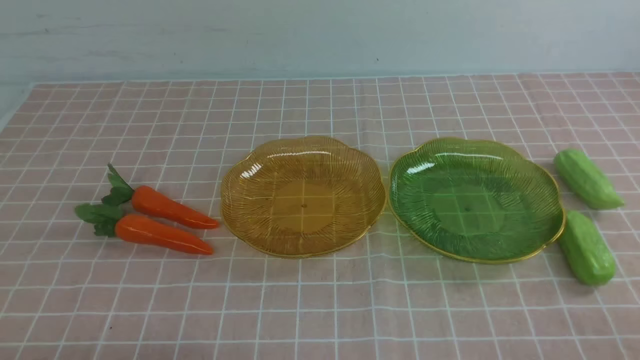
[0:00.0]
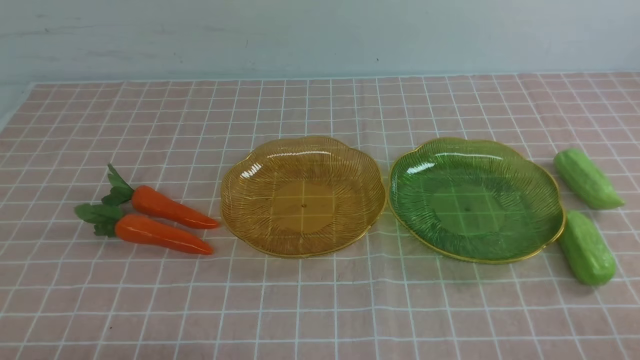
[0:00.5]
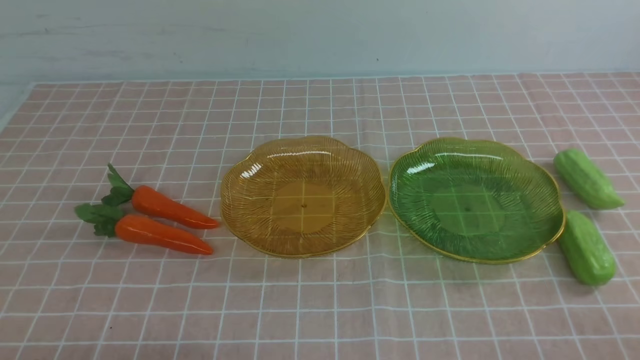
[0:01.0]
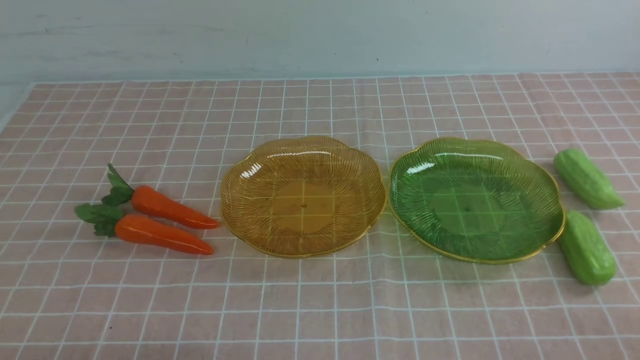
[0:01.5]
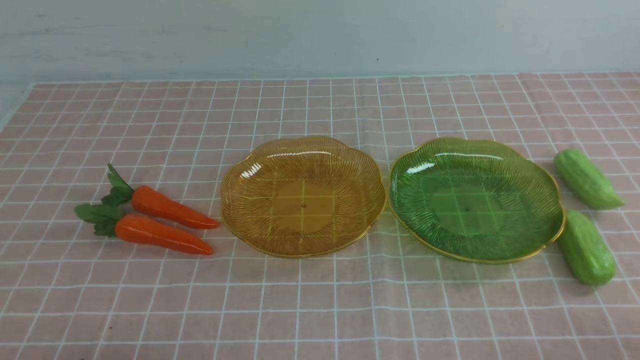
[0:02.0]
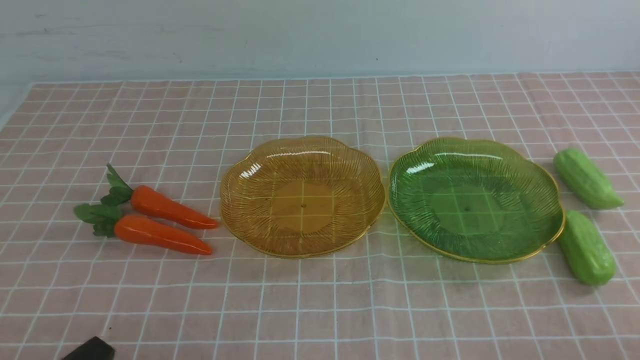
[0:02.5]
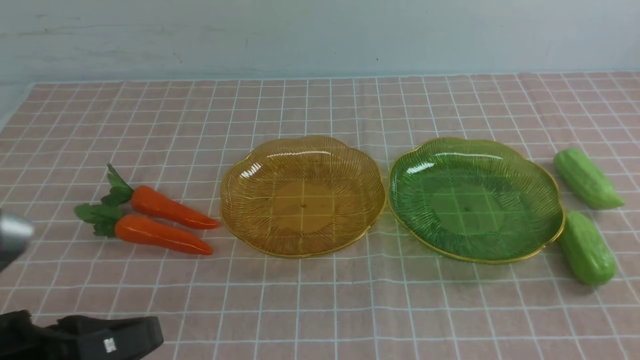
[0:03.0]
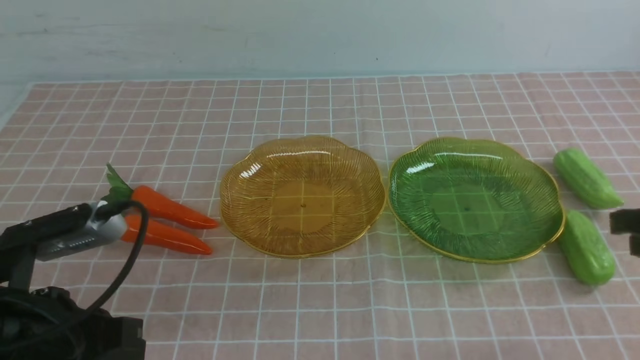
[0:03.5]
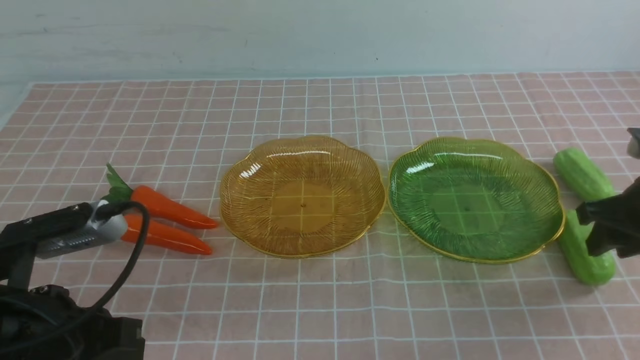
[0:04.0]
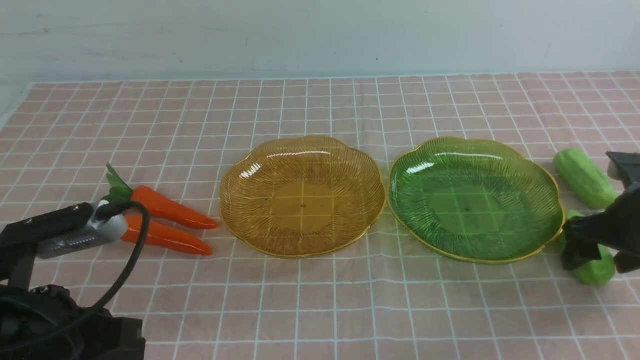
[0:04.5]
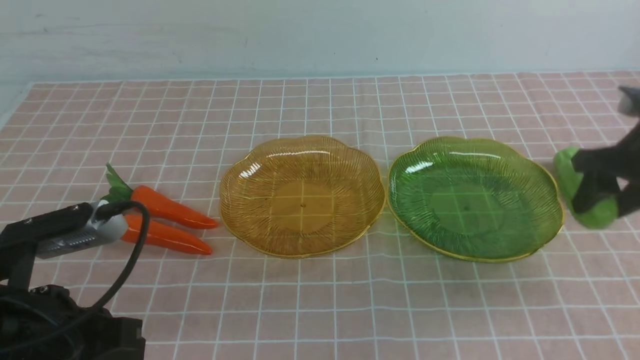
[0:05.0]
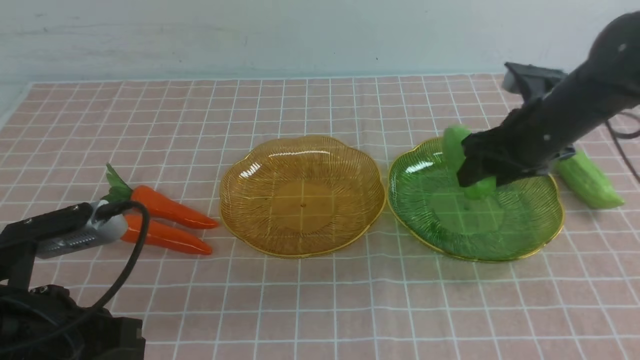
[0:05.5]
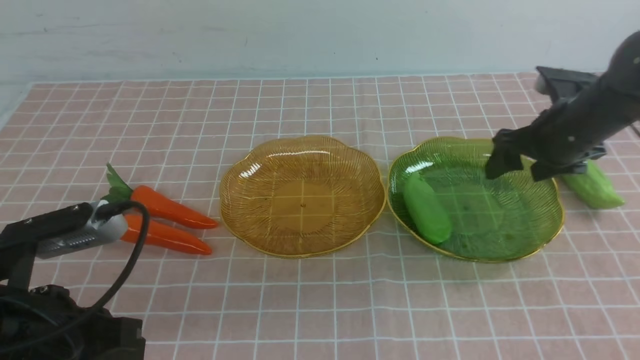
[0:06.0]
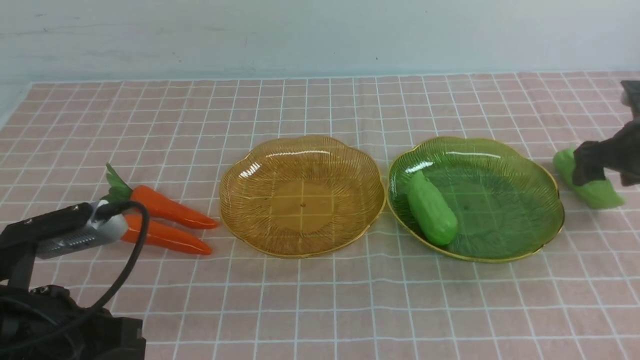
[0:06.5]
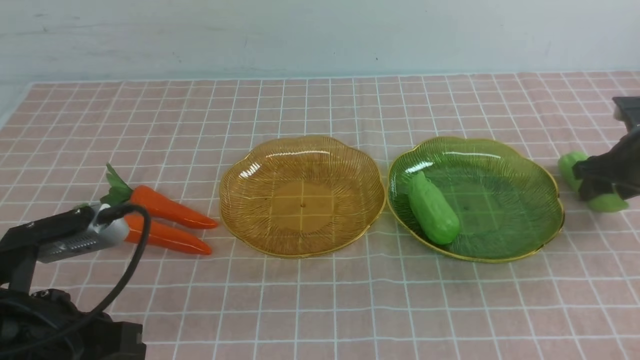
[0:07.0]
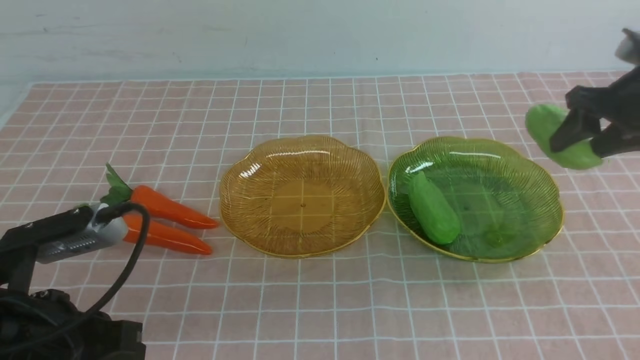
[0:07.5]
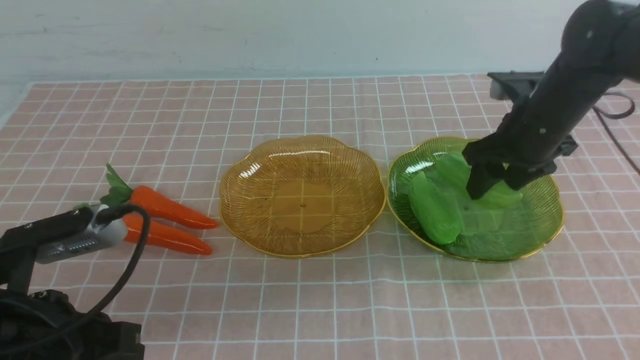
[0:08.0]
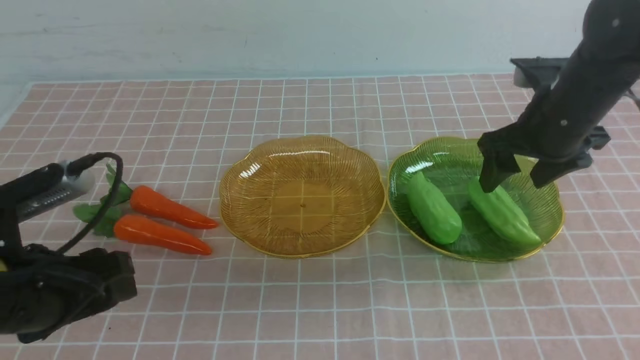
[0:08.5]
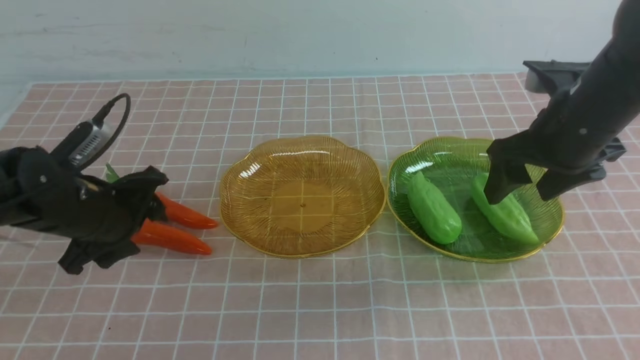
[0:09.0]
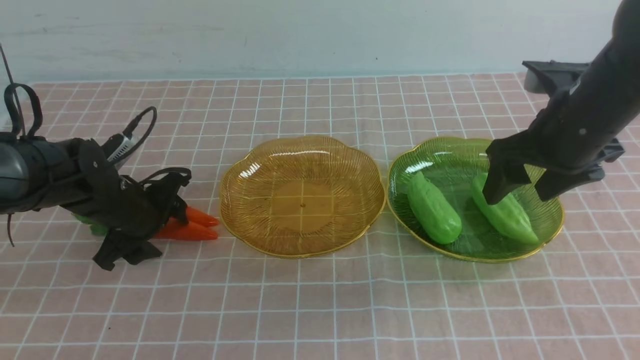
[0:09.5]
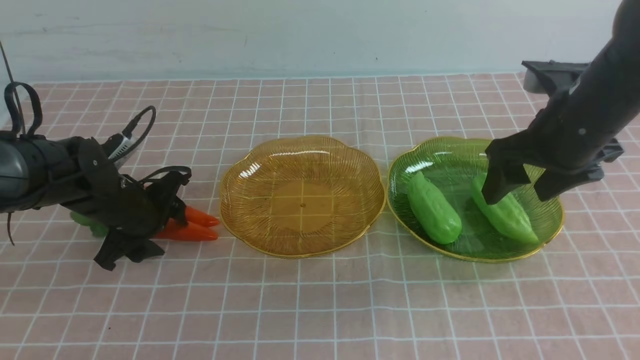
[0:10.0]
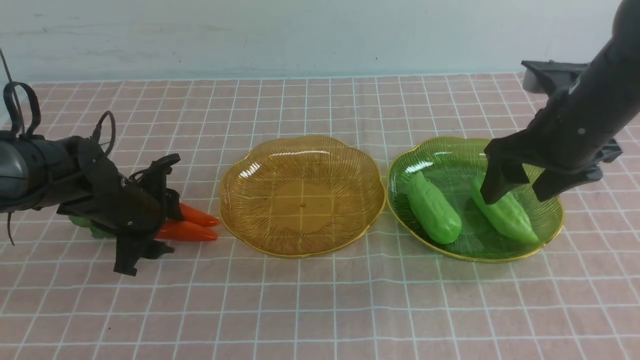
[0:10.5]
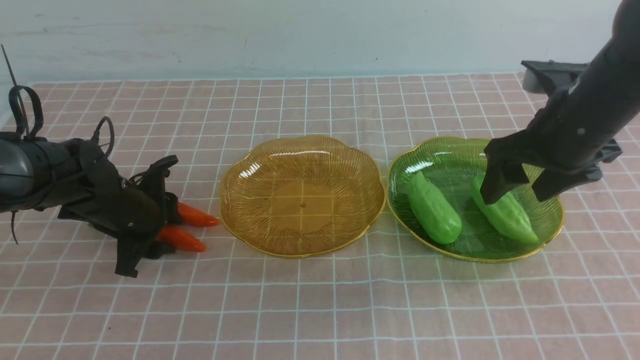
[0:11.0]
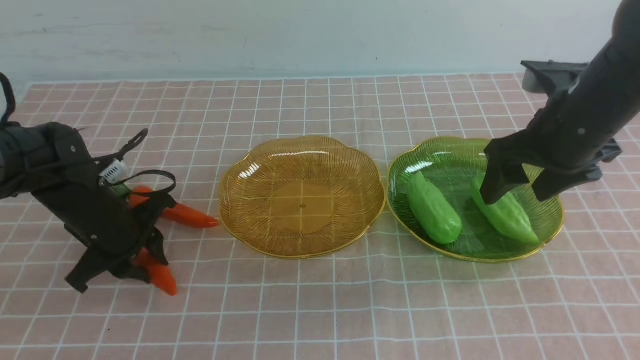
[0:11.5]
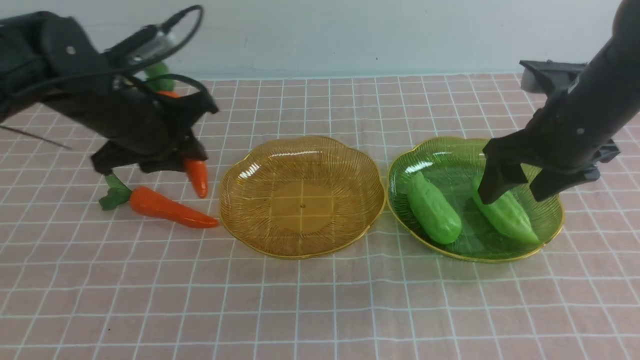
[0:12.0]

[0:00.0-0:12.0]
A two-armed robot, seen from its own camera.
Step, 0:00.0 to 0:05.5: use the right arm to grab a chayote and put it into the right plate.
Step, 0:06.0 to 0:08.0: use the right arm to grab a chayote and put it into the right plate.
0:02.0 to 0:04.0: The left gripper moves forward and upward, some 15 cm. Meanwhile the right gripper shifts roughly 25 cm forward, and opens.
0:04.0 to 0:06.0: The right gripper moves forward, some 10 cm, and moves about 10 cm to the left and comes back.
0:06.0 to 0:08.0: The right gripper is displaced to the left by roughly 10 cm.
0:08.0 to 0:10.0: The left gripper shifts approximately 25 cm forward and downward, and opens its fingers. Meanwhile the right gripper goes about 5 cm backward.
0:10.0 to 0:12.0: The left gripper goes roughly 10 cm upward, and closes.

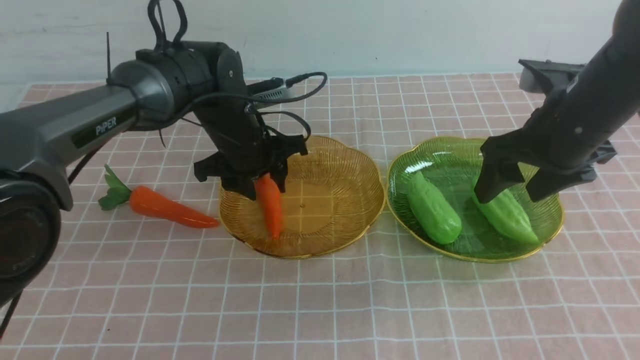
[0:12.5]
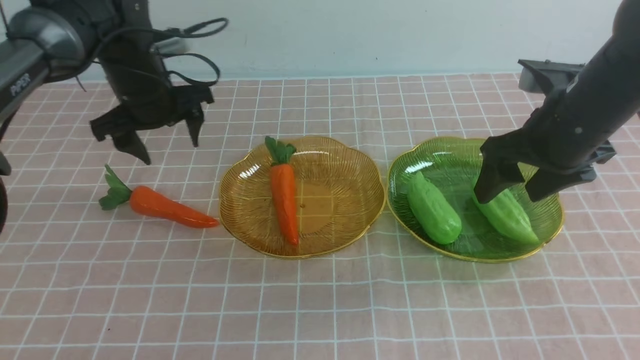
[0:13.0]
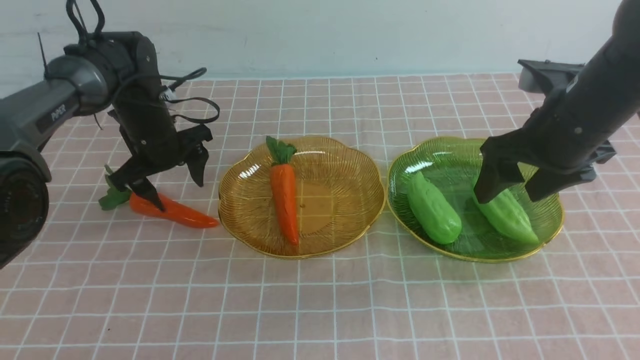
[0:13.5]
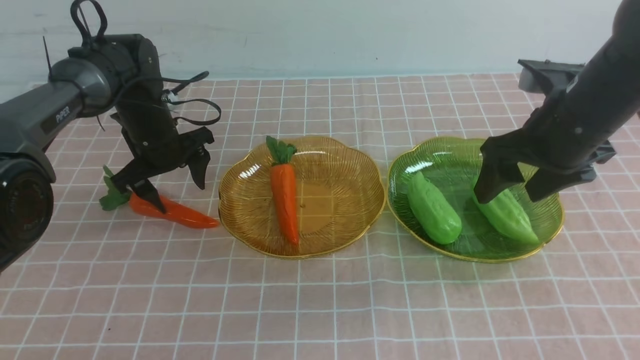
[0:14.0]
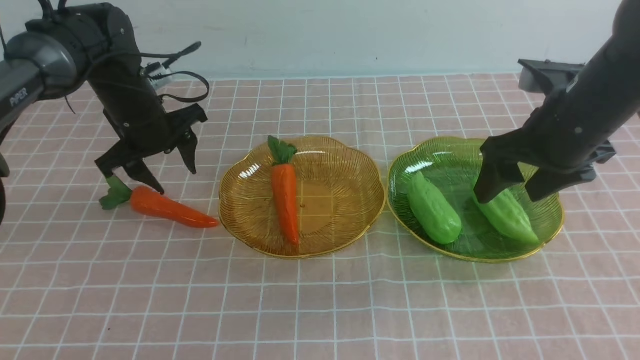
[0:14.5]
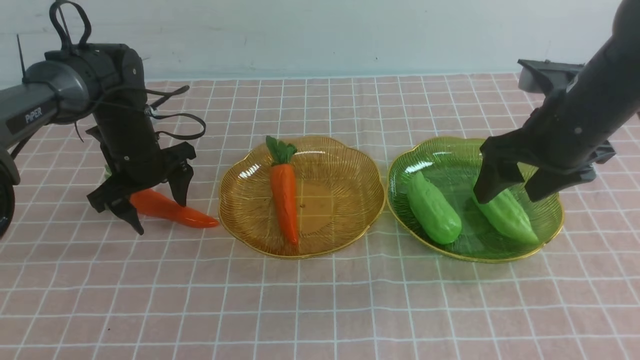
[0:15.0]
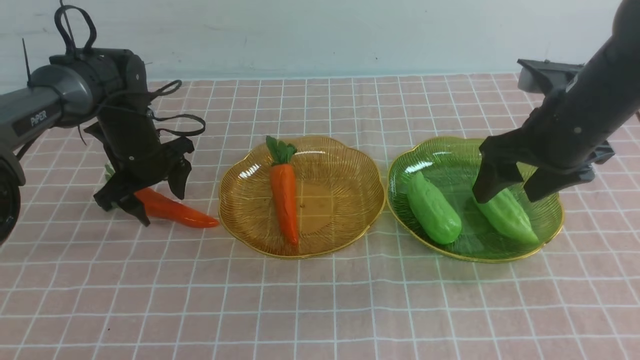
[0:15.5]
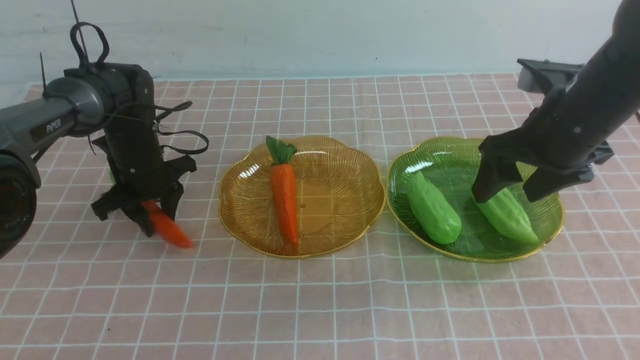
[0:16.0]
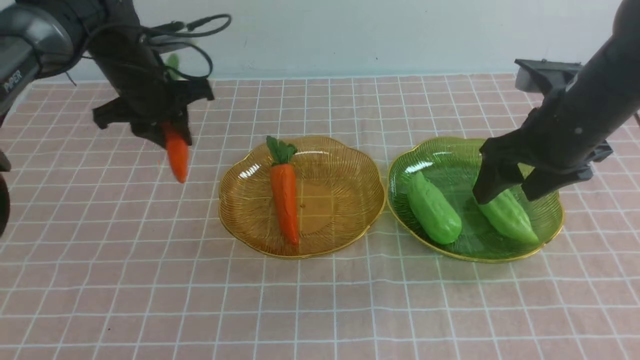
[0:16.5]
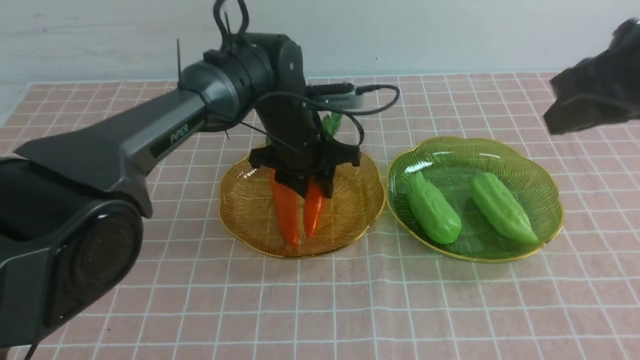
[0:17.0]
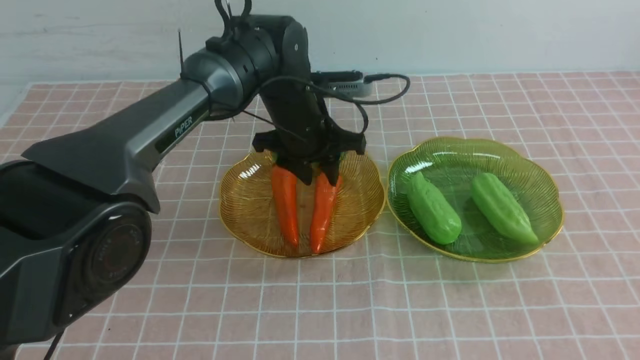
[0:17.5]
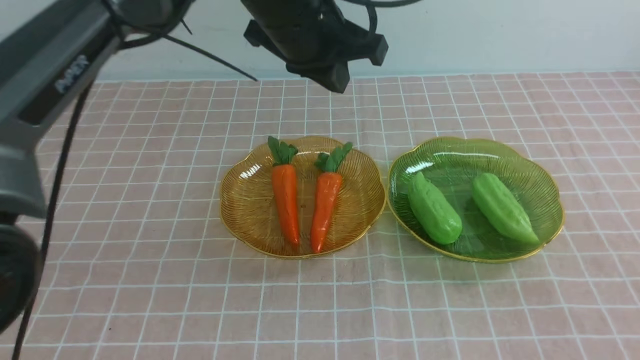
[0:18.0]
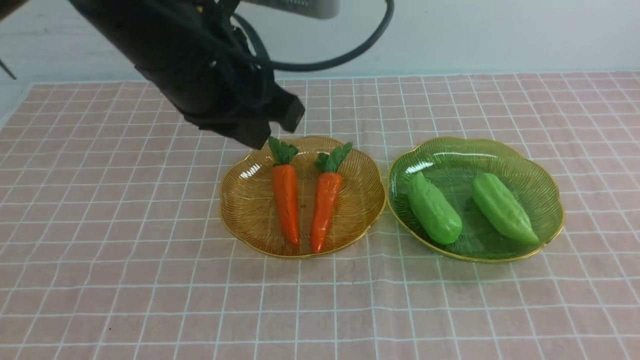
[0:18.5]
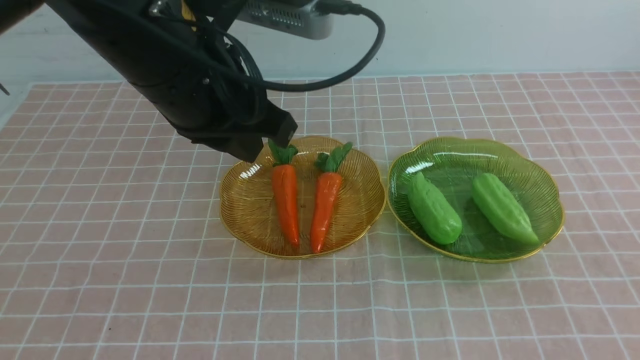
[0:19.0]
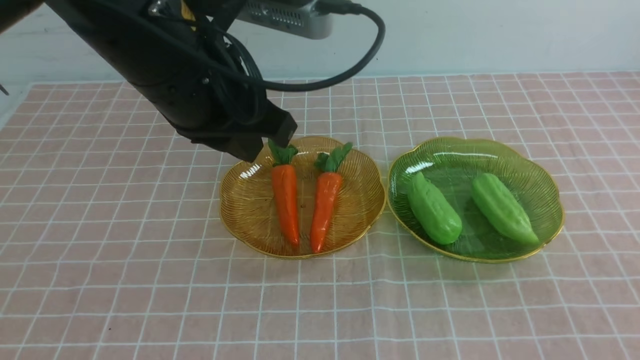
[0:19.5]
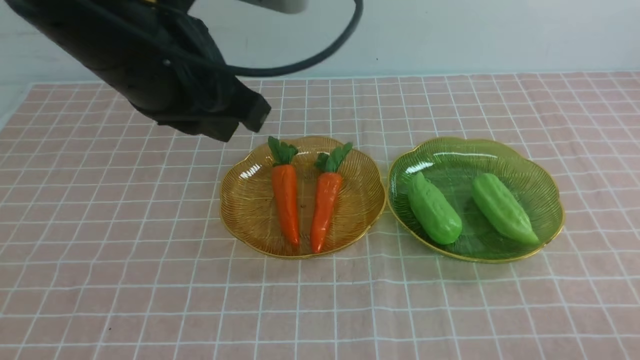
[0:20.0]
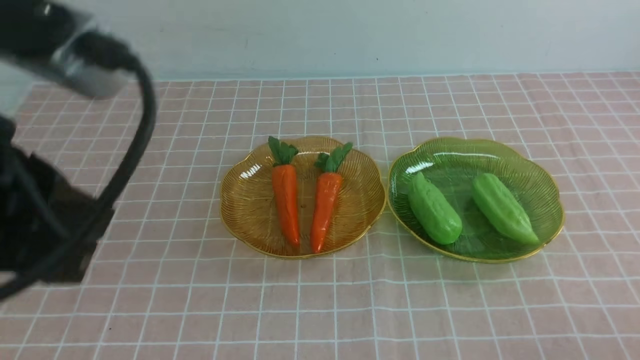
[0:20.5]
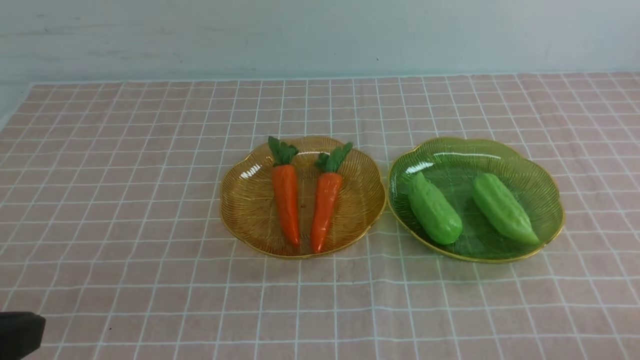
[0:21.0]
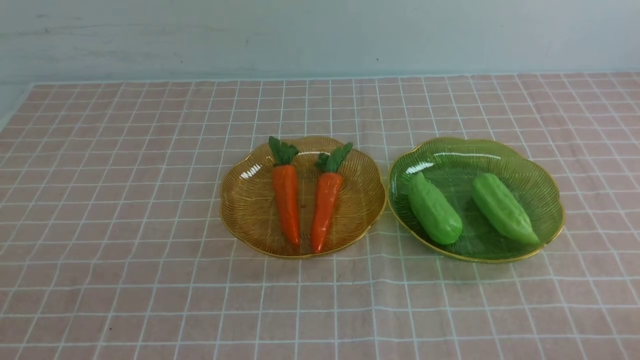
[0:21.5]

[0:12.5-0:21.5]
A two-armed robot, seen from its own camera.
Step, 0:12.5 to 0:17.5: use the left arm to grab a carrot and put it into the left plate.
0:12.5 to 0:14.5: The left gripper heads to the left, covering approximately 10 cm.
0:14.5 to 0:17.0: The left gripper goes some 20 cm to the right; the right gripper shifts roughly 15 cm upward and backward, and closes its fingers.
0:17.0 to 0:19.5: The left gripper moves upward and backward, approximately 25 cm, and closes its fingers. Meanwhile the right gripper moves backward and downward, about 25 cm.
0:19.5 to 0:21.5: The left gripper goes roughly 35 cm backward and to the left. The right gripper travels downward by about 5 cm.
